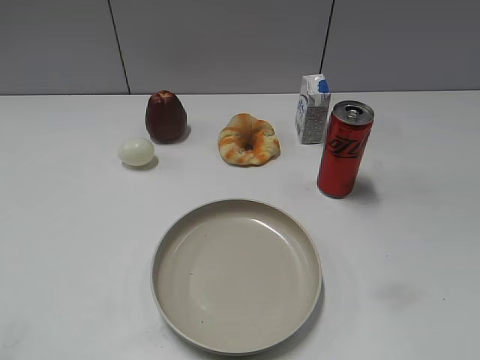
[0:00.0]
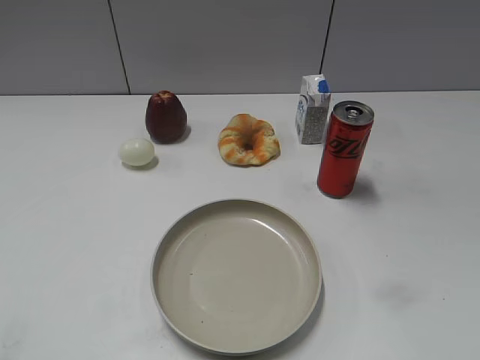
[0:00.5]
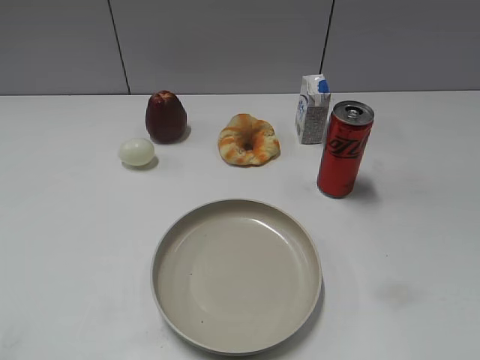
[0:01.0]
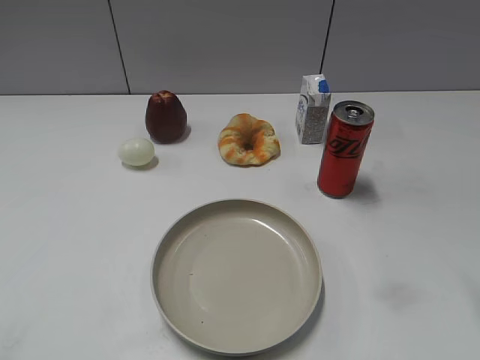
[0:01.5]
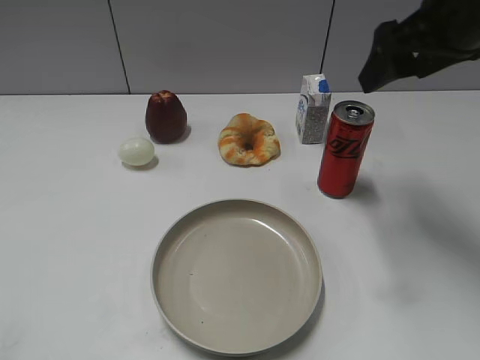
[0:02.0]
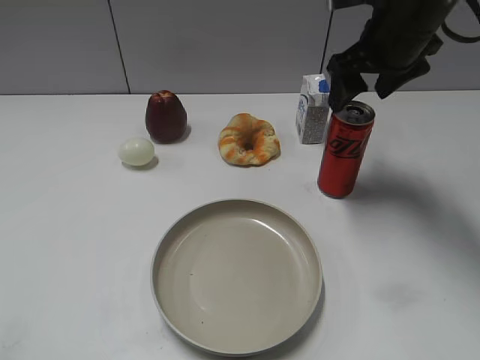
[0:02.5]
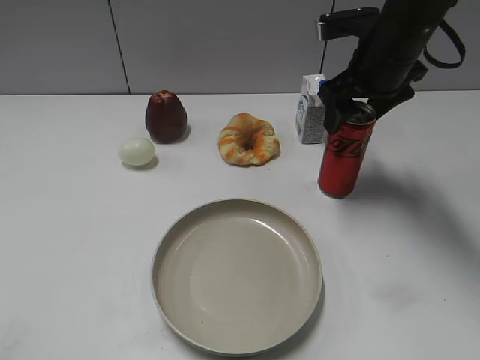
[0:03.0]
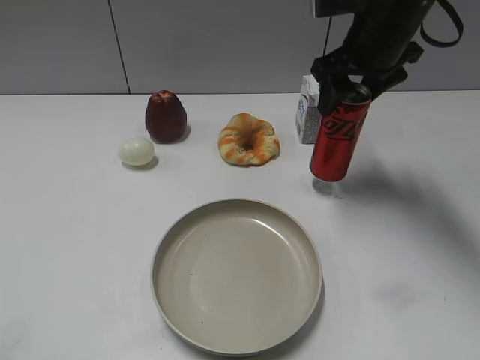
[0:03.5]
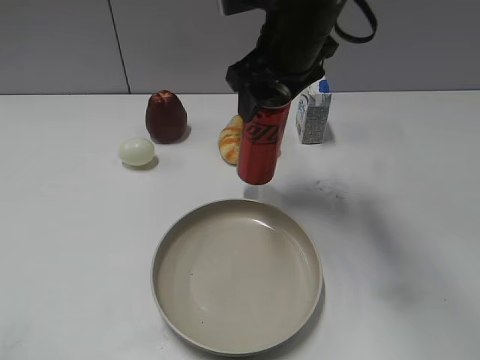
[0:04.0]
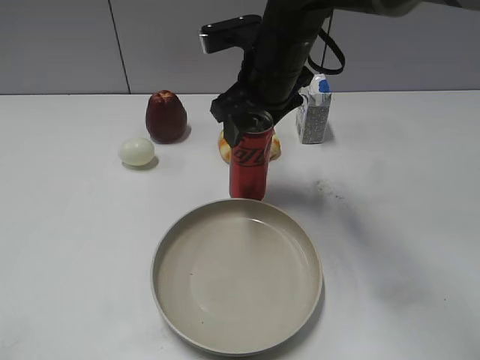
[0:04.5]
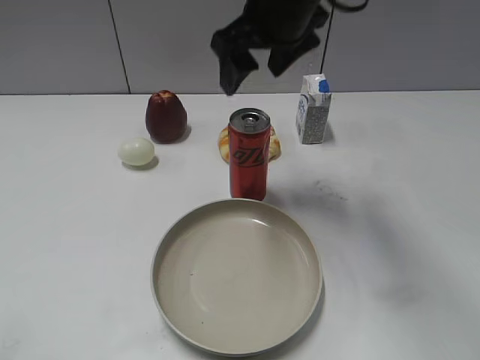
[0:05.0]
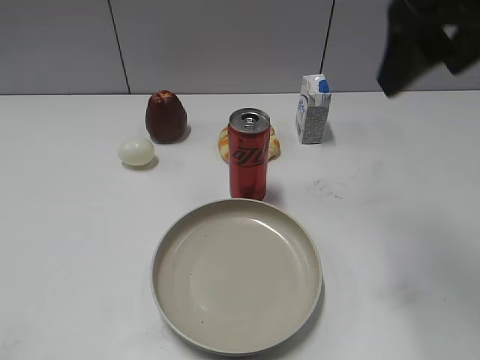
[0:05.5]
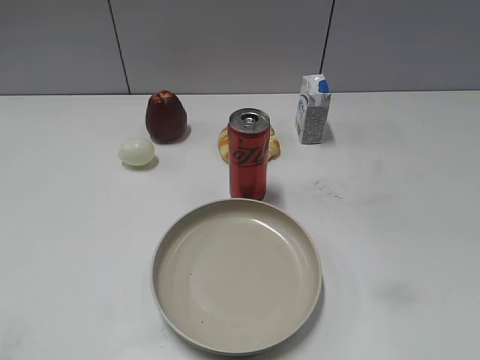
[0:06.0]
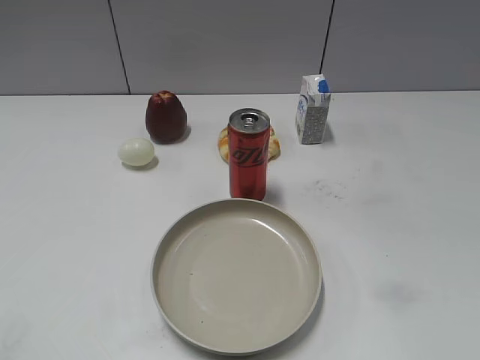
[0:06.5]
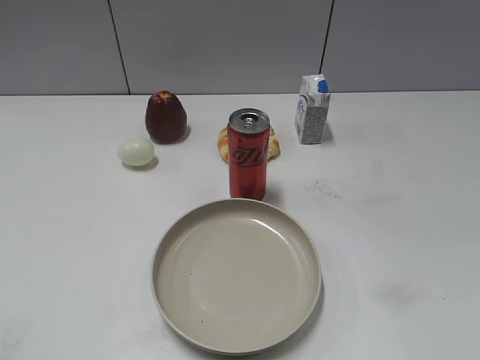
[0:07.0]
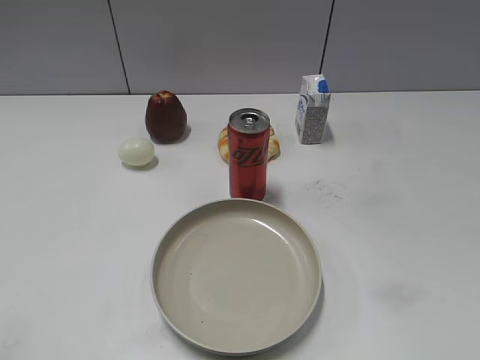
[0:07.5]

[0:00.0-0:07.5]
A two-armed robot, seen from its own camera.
Step, 0:01.0 to 0:03.0: Grasp the cola with right gripper.
Step, 0:03.5 to 0:04.5: Place the cola on the table with right gripper.
0:02.0 to 0:04.0: The right gripper heads to the left and forward, covering approximately 15 cm, and closes its fingers.
0:04.0 to 0:05.5: The right gripper is displaced backward, upward and to the right by roughly 20 cm, and opens its fingers.
0:05.5 to 0:07.5: The right gripper moves backward and to the right, approximately 30 cm, and closes.

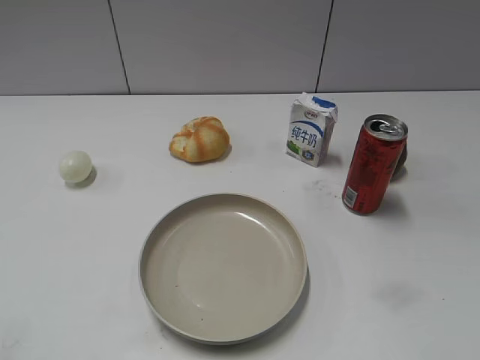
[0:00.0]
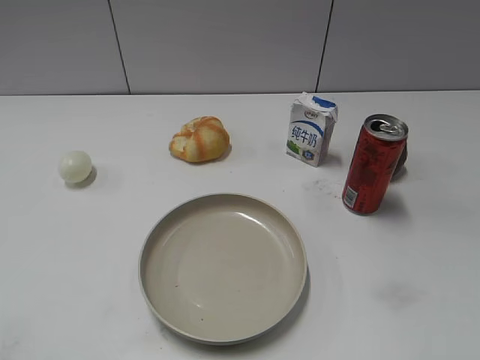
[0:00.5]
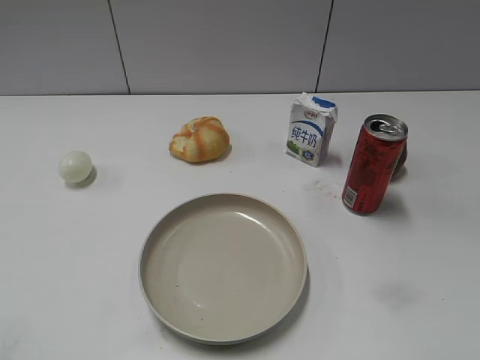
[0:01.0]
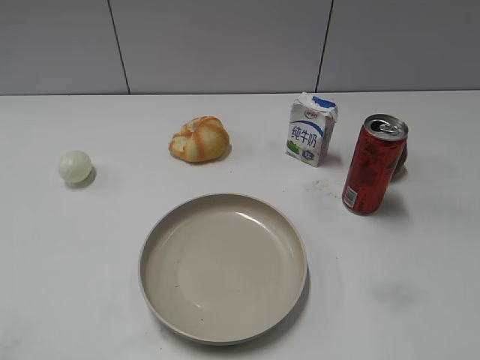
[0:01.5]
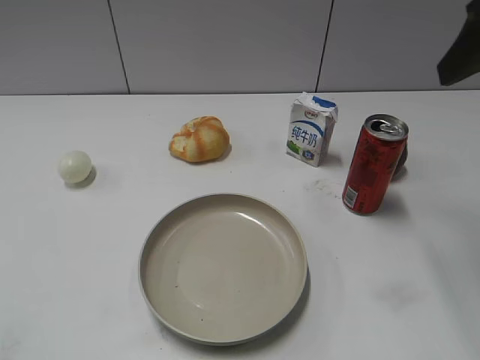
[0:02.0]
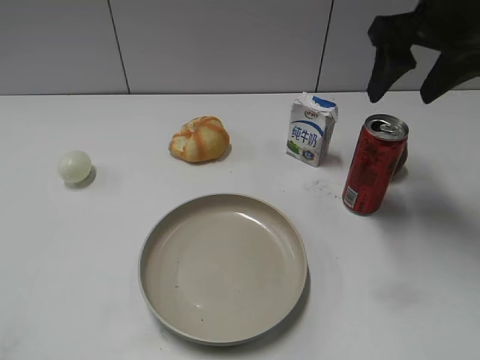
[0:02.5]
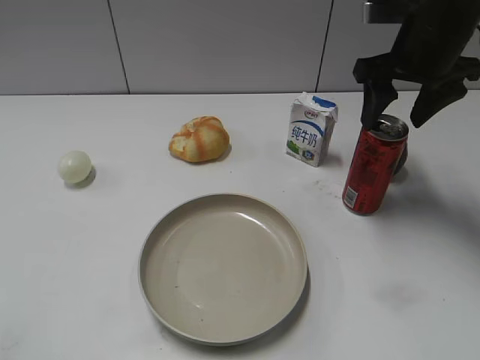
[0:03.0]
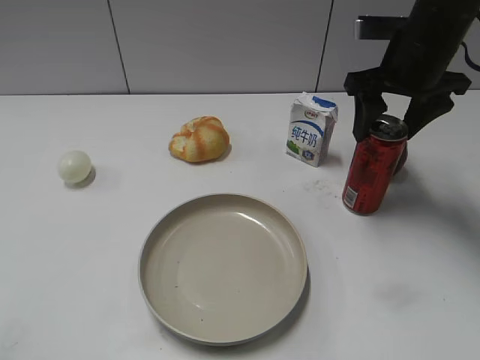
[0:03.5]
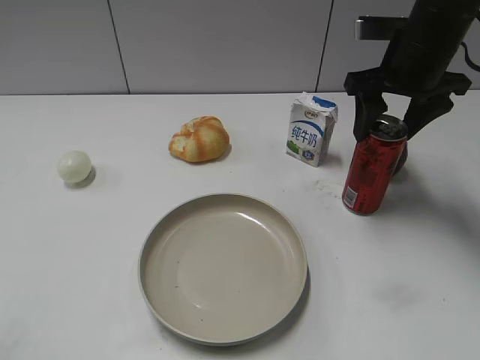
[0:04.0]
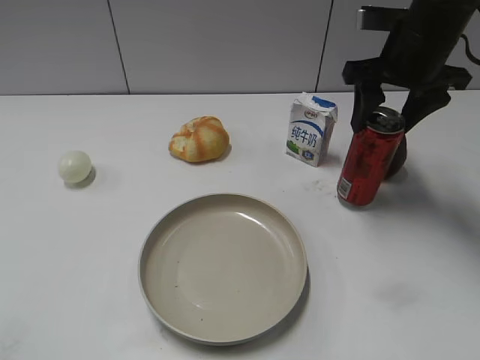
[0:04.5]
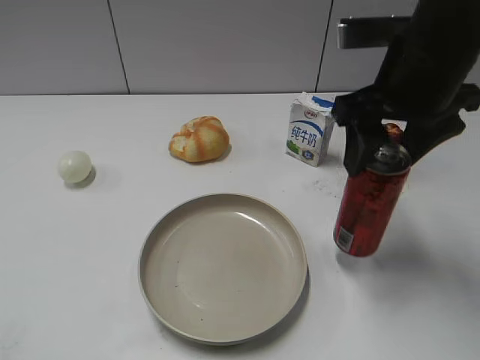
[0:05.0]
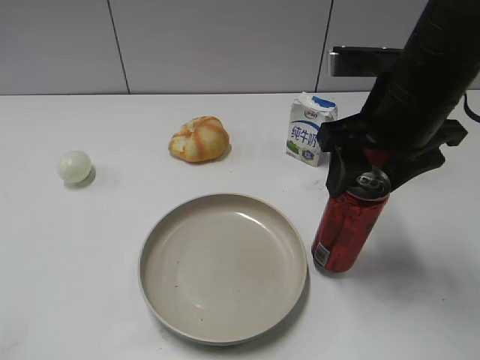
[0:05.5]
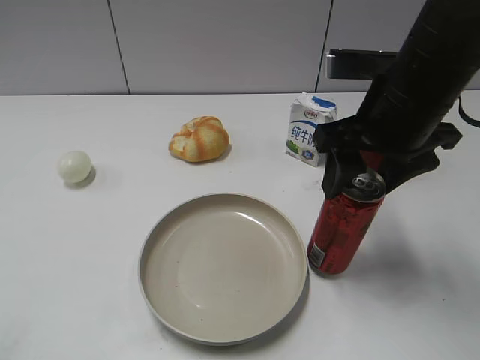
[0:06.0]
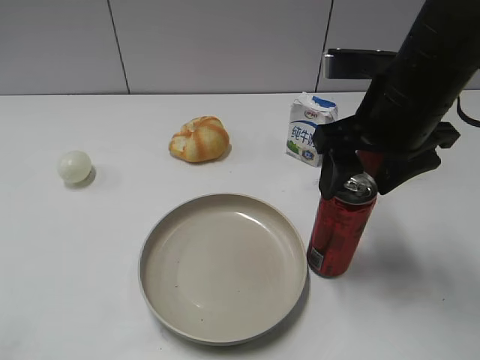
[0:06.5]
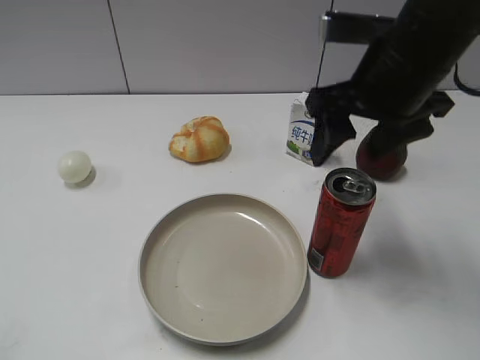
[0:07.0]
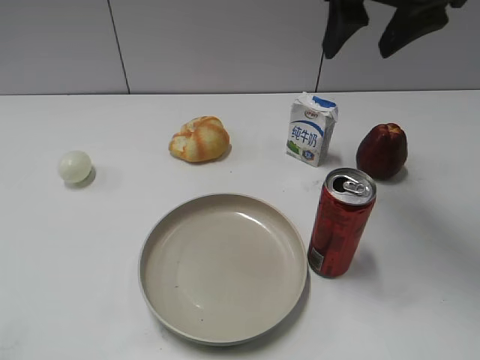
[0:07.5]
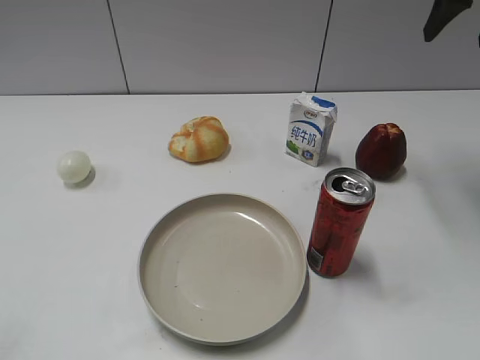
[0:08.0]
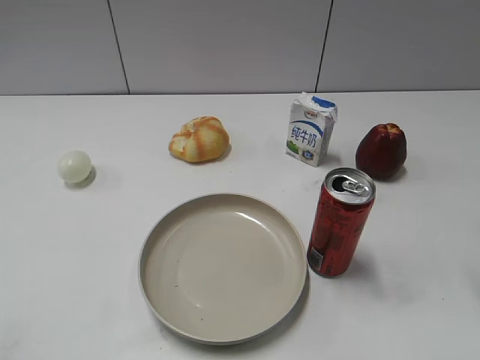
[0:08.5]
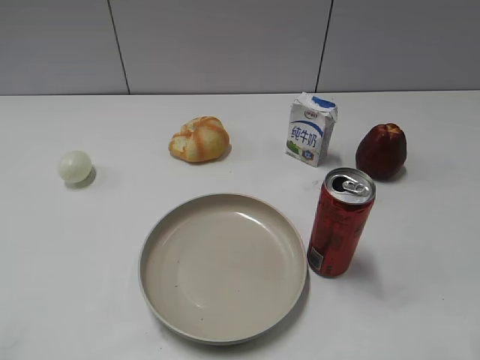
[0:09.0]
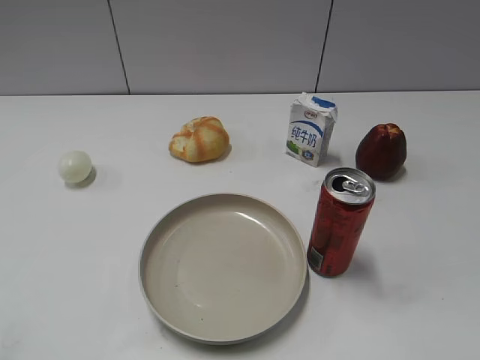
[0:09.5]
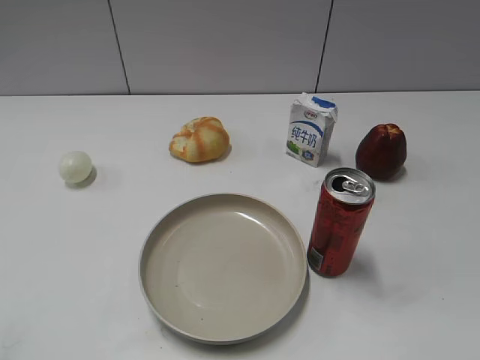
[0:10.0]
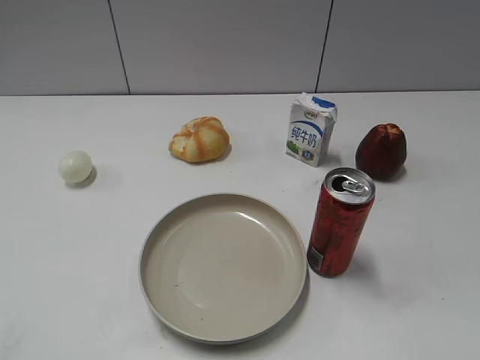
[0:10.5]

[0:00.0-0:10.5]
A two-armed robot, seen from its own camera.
Step, 0:01.0 to 0:04.5: Grasp the cola with right gripper.
Step, 0:05.0 to 0:06.5: Place the cola on the table with right gripper.
0:02.0 to 0:04.0: The right gripper heads forward and downward, covering about 20 cm.
0:04.0 to 0:06.5: The right gripper is displaced backward by some 10 cm.
0:06.5 to 0:08.5: The right gripper shifts about 15 cm to the right, upward and backward.
